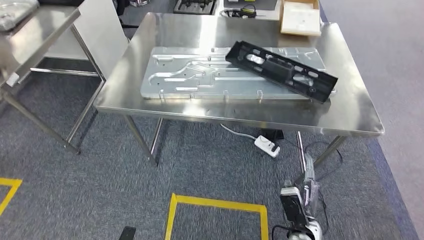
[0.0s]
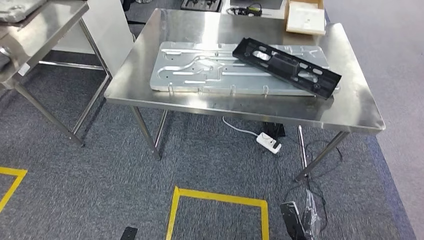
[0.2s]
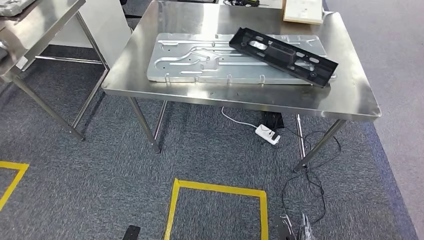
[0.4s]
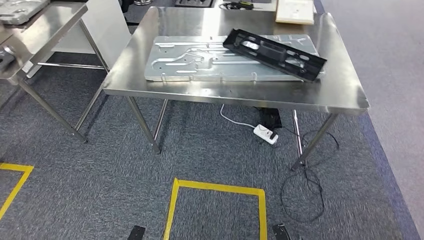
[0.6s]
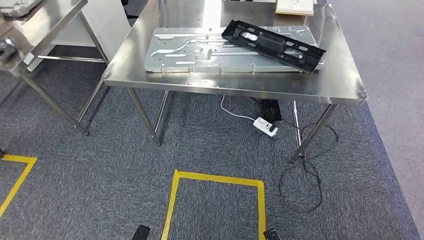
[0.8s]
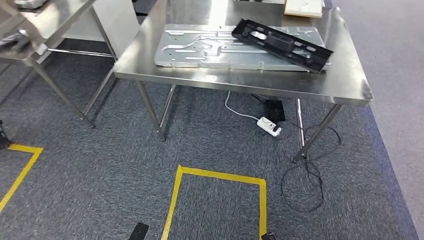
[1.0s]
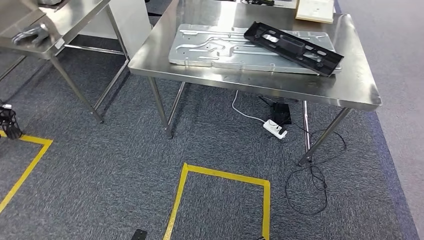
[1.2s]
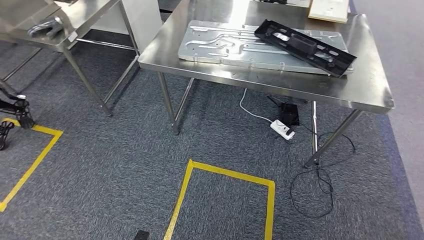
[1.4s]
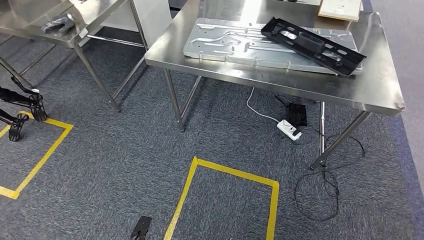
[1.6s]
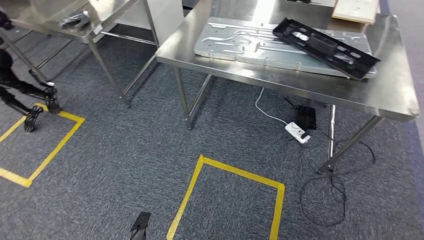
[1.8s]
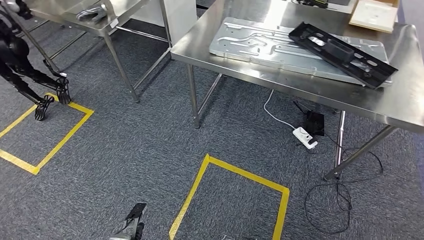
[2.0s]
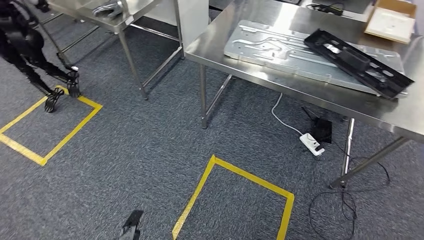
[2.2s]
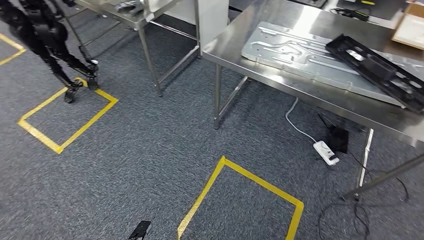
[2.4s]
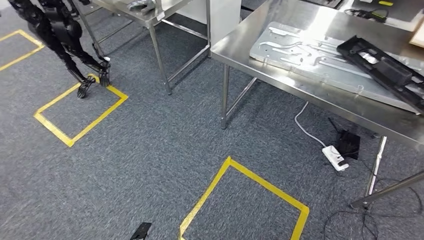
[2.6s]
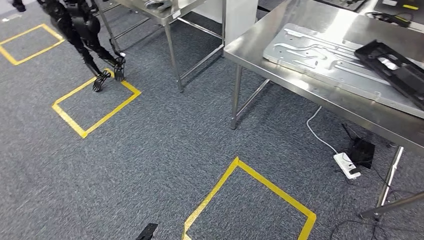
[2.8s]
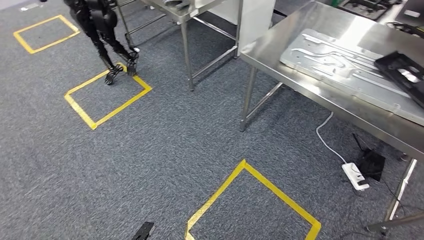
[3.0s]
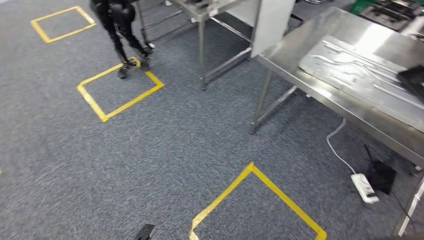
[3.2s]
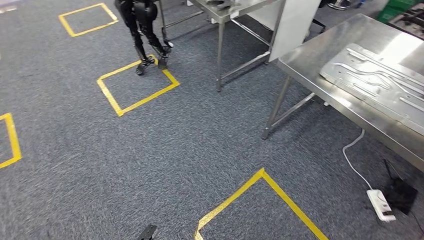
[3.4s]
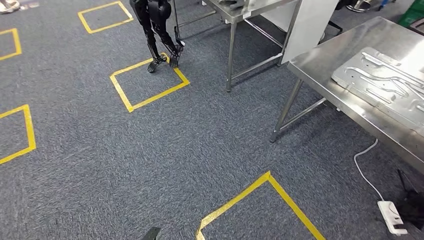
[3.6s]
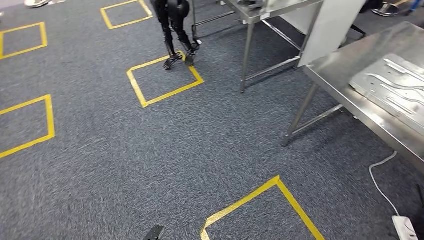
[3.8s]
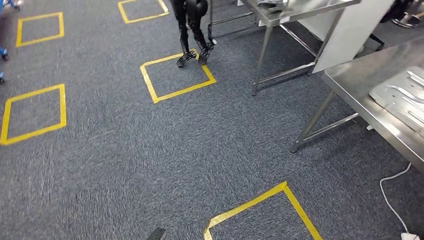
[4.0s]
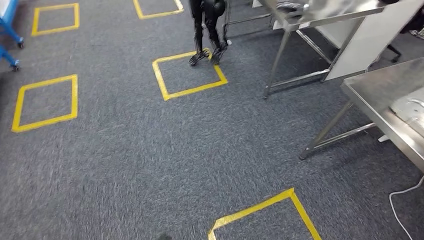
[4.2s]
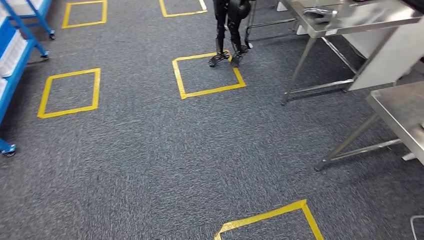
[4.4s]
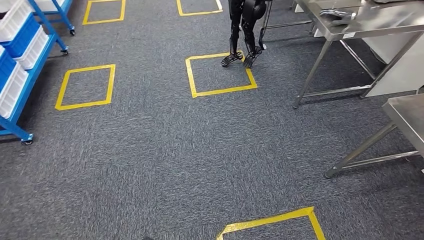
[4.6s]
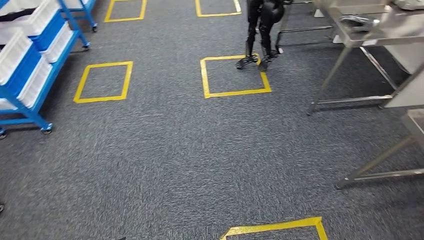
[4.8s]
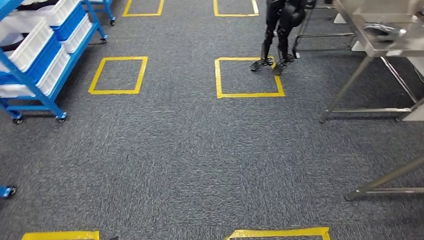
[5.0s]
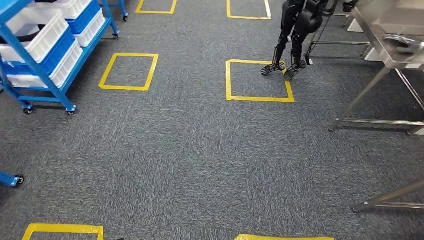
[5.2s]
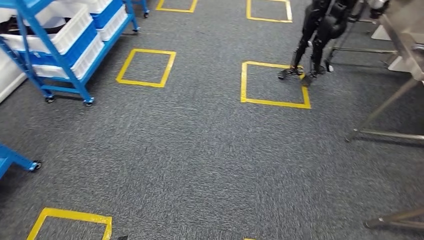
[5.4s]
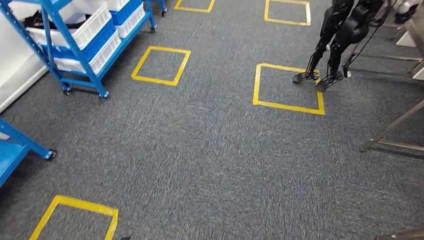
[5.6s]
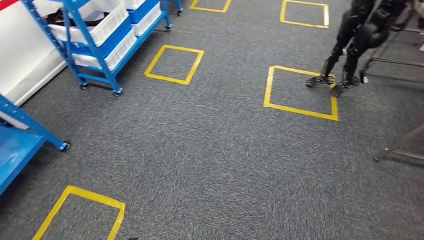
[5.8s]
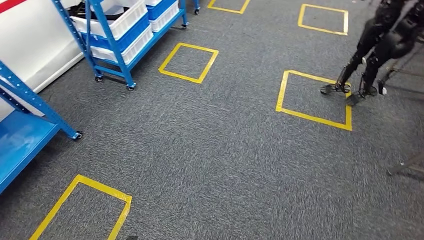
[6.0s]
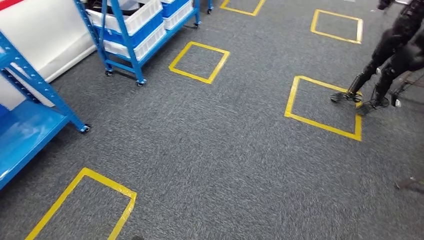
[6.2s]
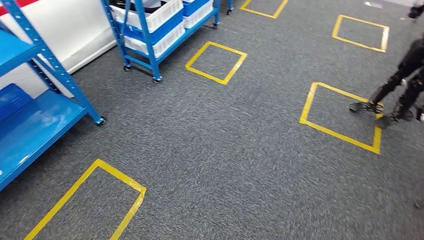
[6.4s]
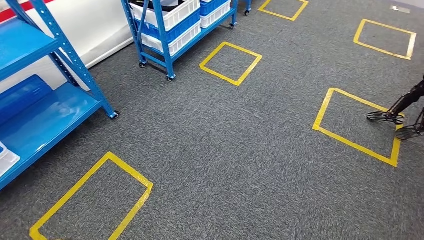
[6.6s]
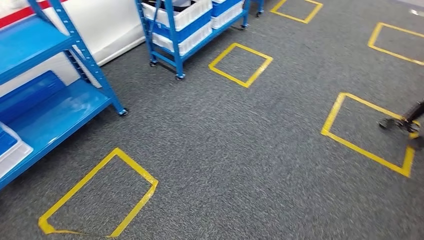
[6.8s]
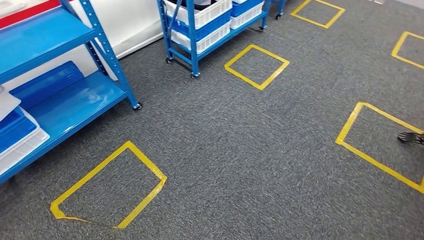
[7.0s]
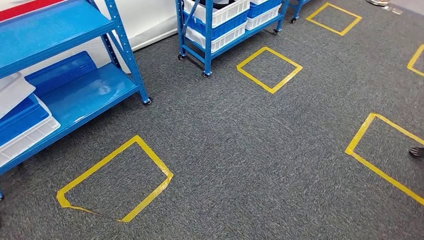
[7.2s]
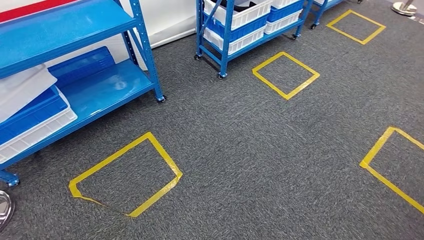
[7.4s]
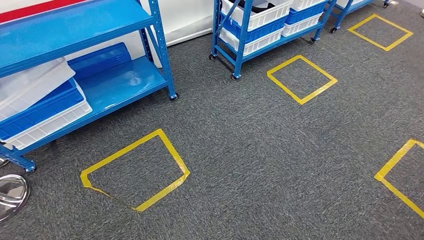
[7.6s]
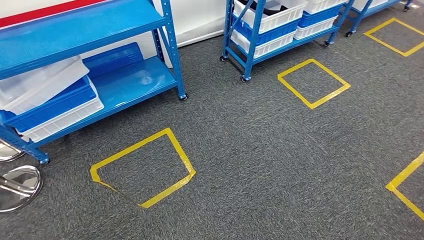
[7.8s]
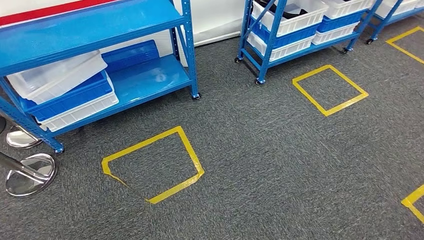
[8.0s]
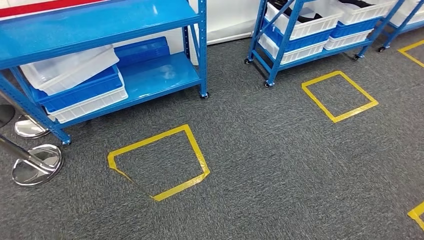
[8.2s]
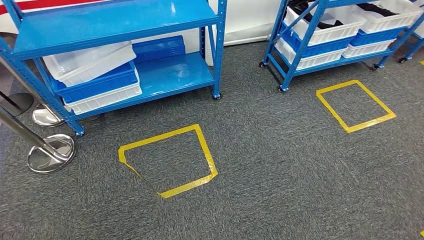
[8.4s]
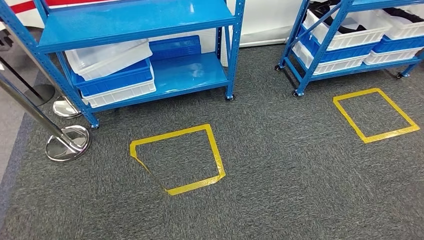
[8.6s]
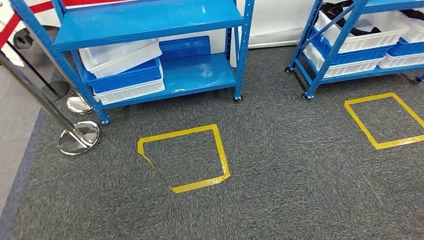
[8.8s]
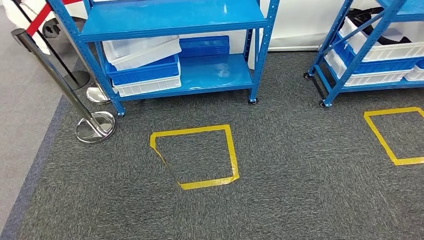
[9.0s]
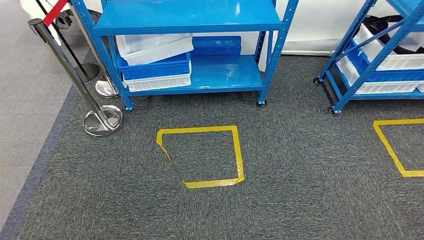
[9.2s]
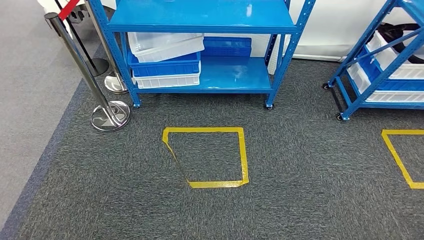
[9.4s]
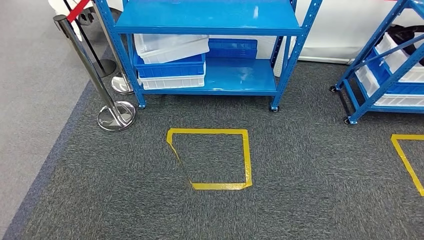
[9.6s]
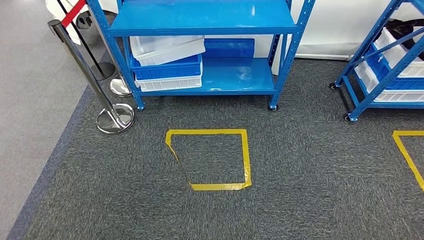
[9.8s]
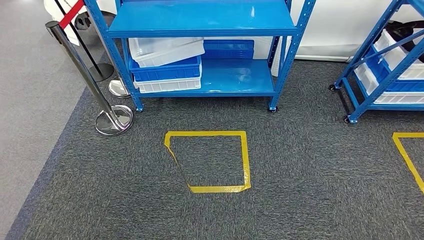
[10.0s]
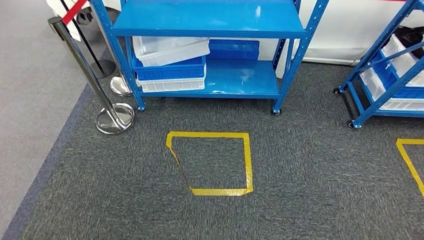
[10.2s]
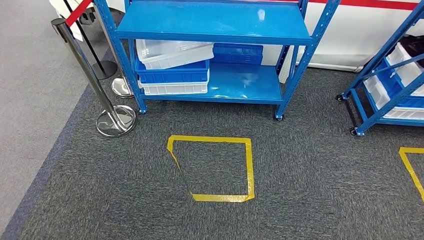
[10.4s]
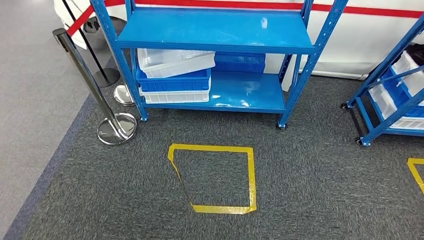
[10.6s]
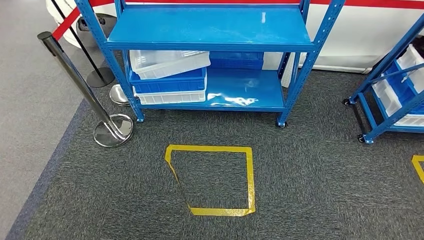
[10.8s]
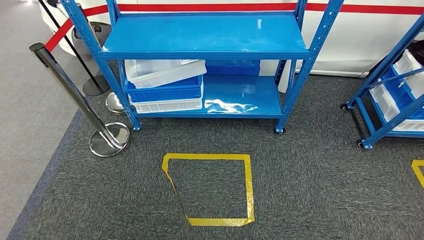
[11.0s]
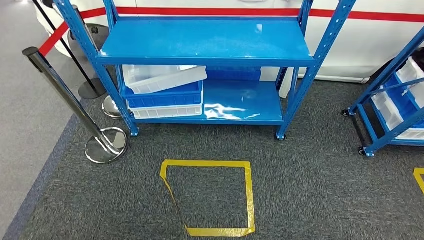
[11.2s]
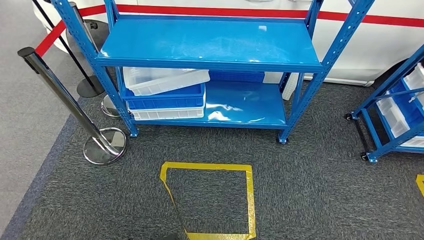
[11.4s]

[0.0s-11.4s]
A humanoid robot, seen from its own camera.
Step, 0.0s to 4.0s: Insert the large material into the corresponding slot on the workbench.

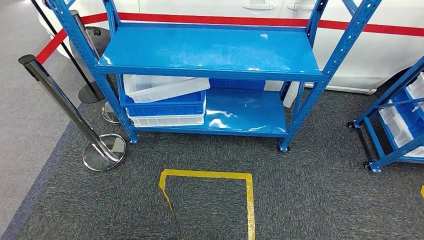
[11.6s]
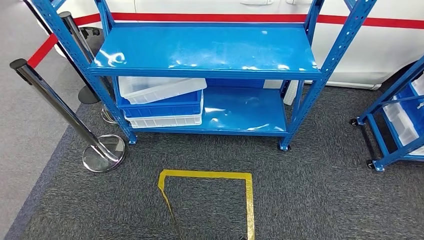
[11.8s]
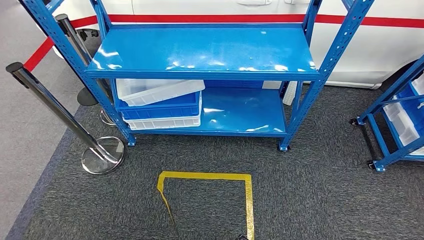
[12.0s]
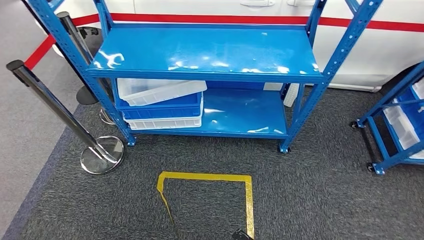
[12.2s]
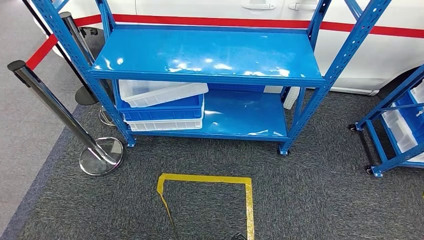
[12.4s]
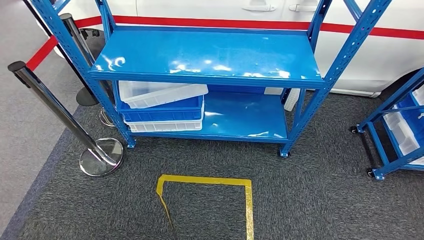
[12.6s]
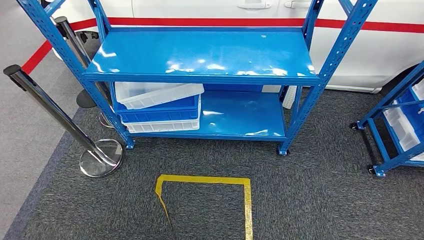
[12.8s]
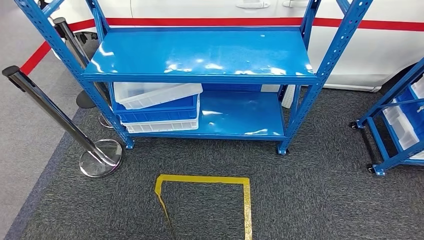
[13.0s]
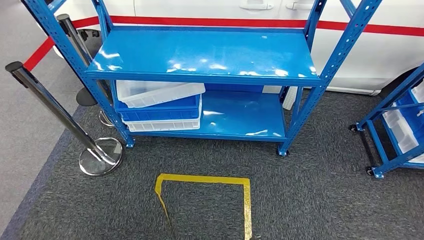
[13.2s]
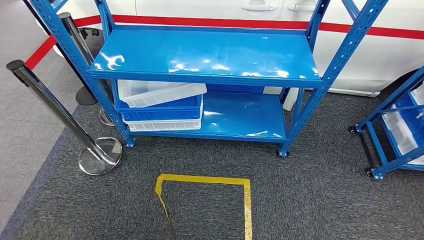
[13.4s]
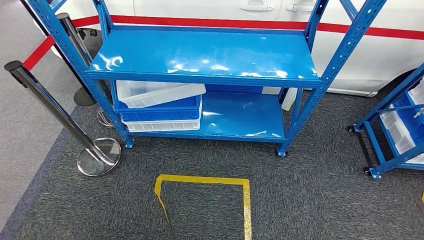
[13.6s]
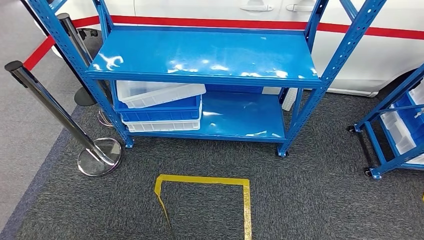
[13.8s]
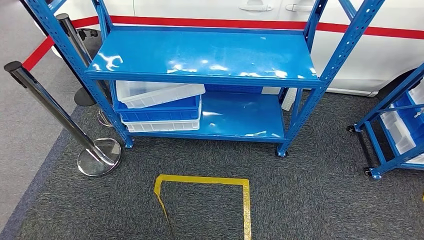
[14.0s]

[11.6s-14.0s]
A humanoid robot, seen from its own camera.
Step, 11.6s to 14.0s: Return to the initial position at the shelf.
12.8s to 14.0s: The left hand shifts approximately 10 cm backward and to the left. Meanwhile the right hand changes place by roughly 5 cm.
